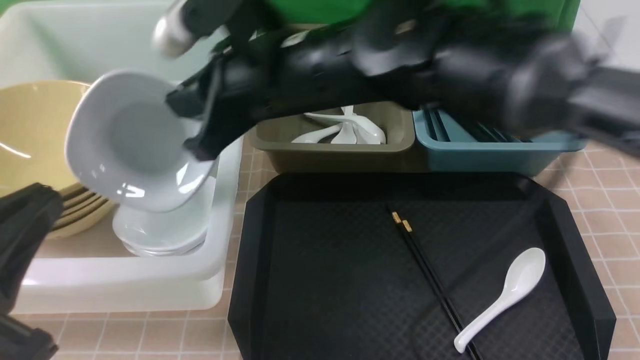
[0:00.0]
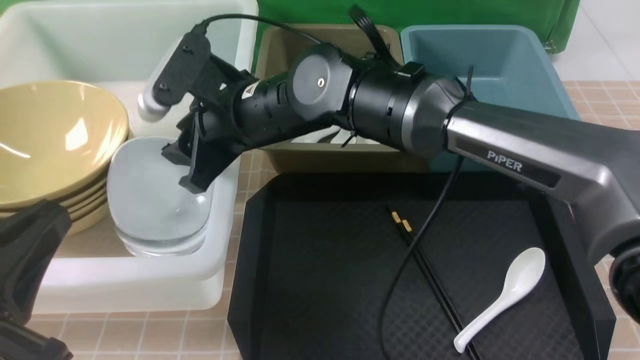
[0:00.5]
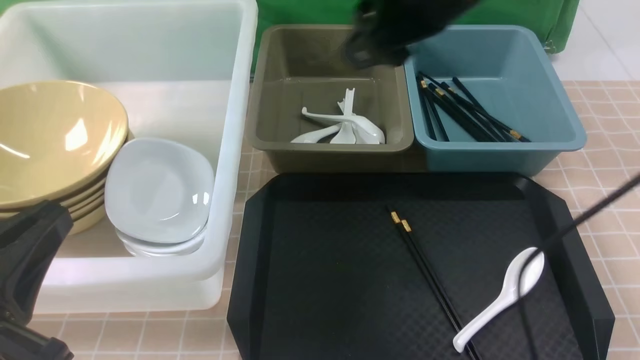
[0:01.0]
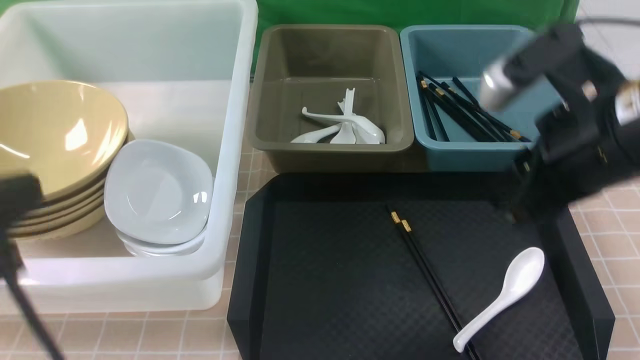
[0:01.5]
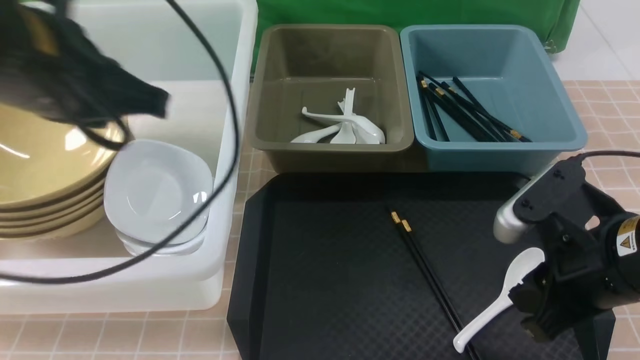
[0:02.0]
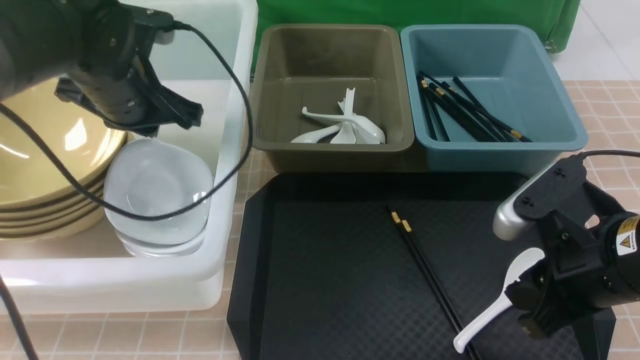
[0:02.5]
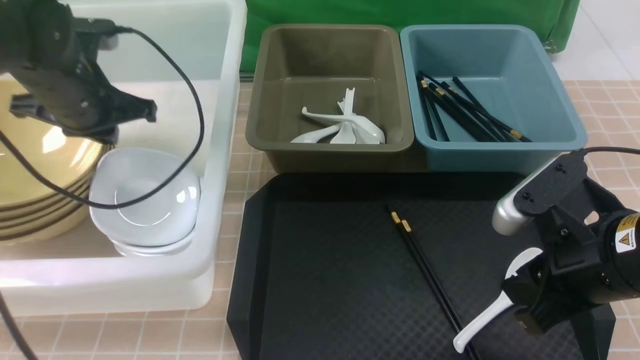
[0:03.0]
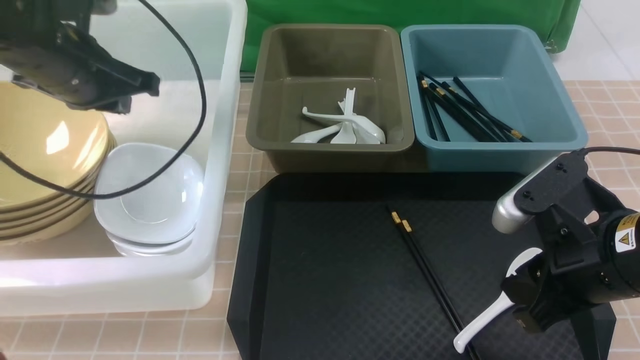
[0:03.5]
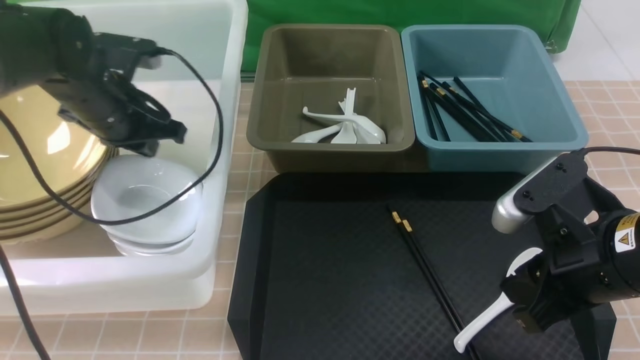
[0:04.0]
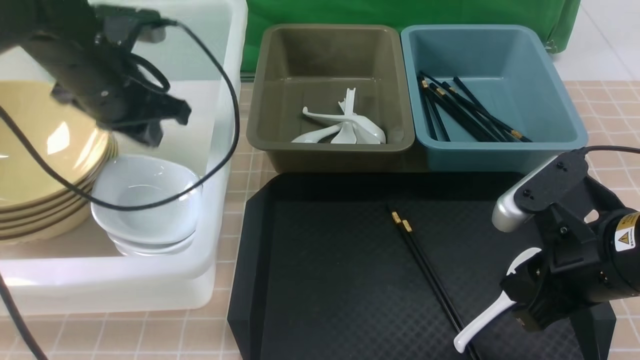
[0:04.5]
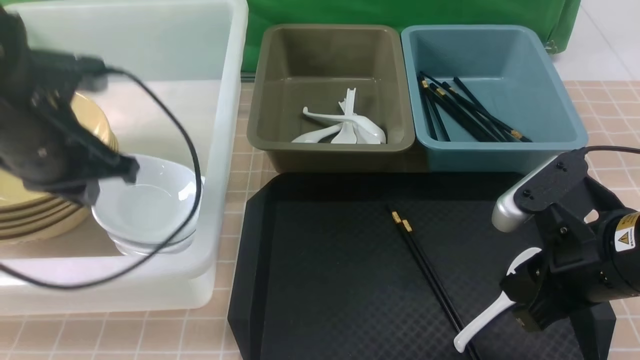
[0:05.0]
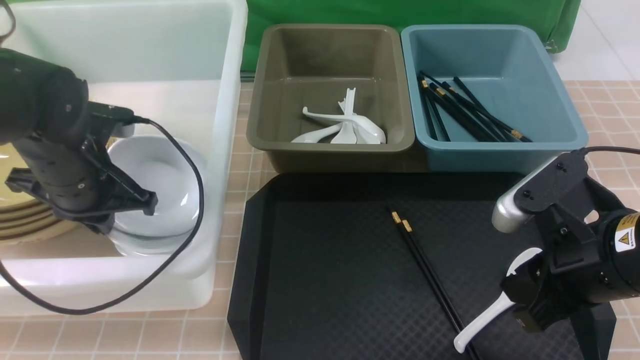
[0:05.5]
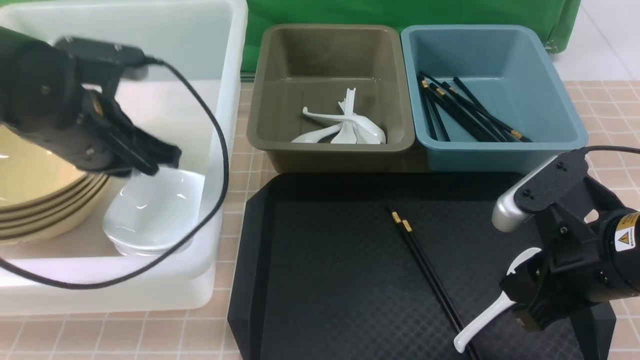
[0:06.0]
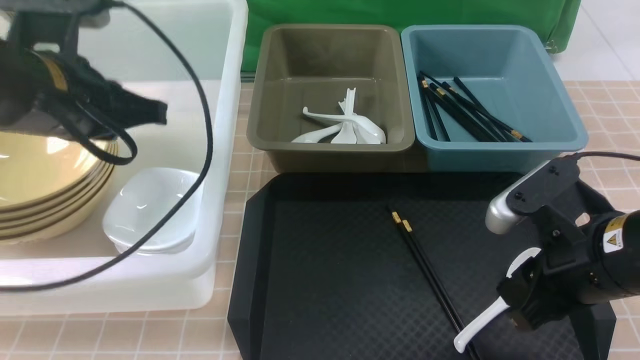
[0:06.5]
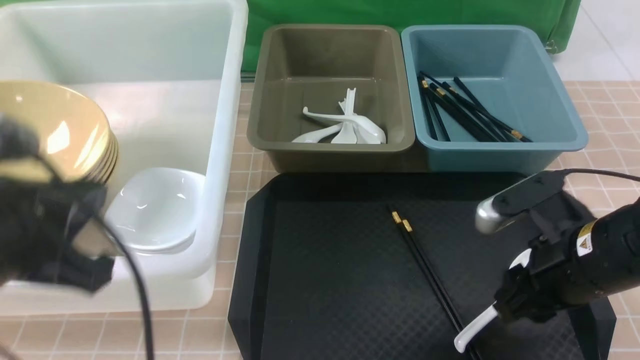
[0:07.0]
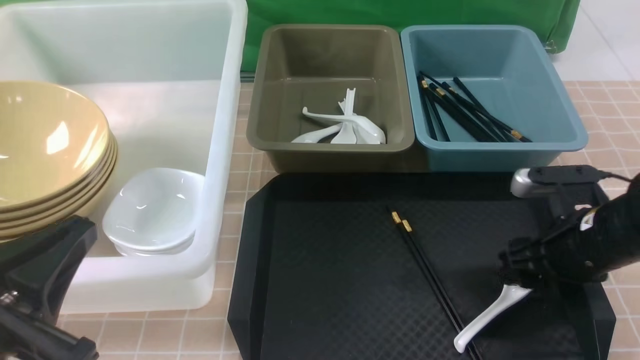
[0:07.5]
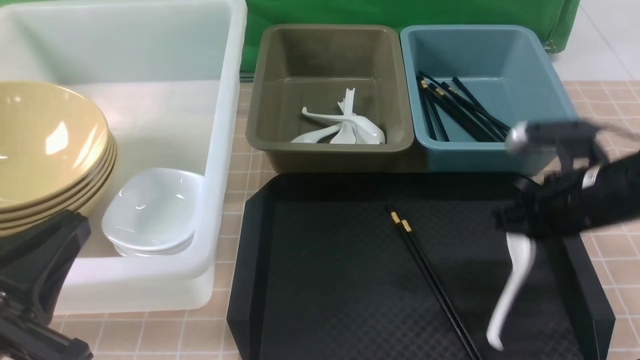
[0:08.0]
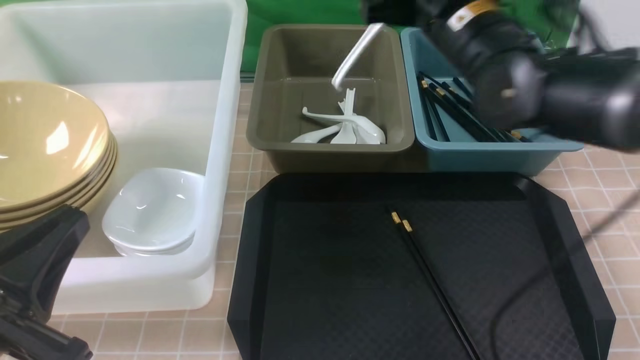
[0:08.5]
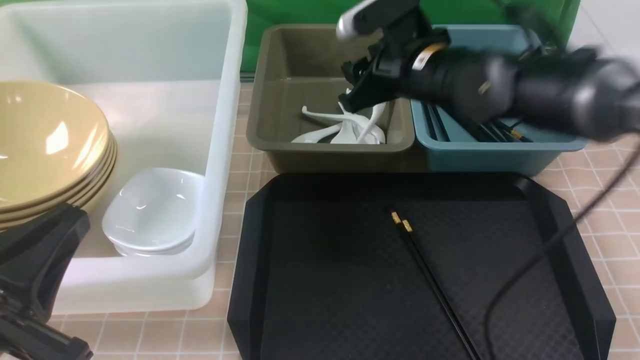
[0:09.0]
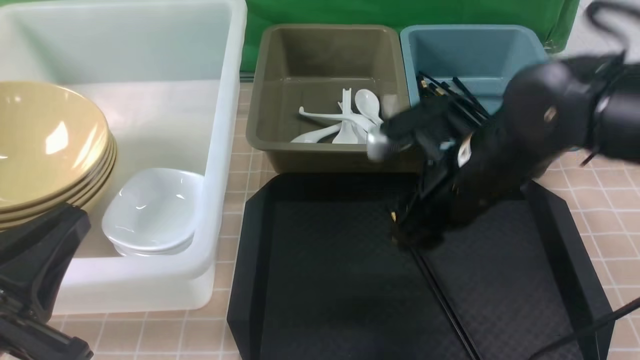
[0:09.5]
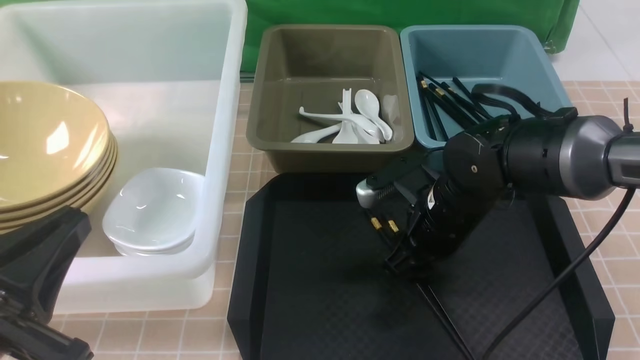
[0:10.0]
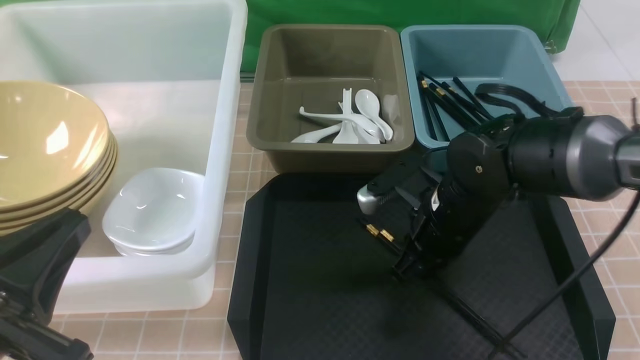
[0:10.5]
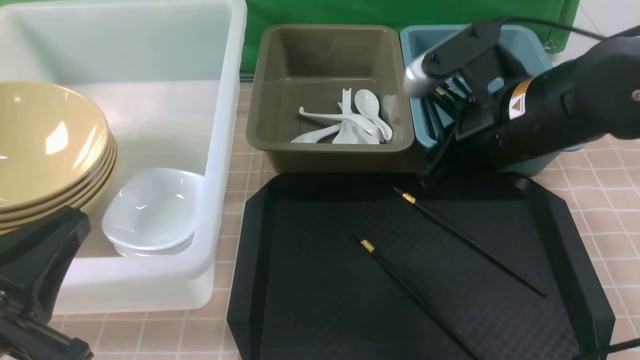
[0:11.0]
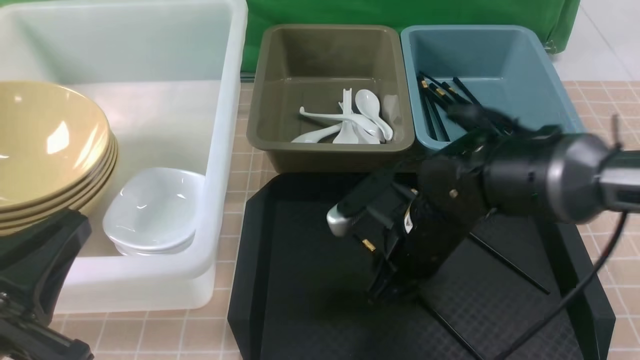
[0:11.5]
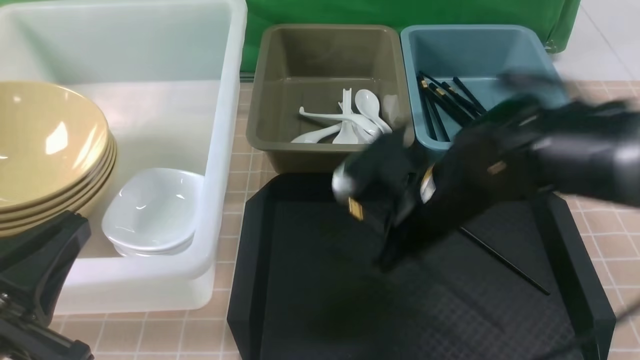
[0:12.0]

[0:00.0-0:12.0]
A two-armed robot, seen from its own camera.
Task of the whole recording: on brown table put chopsticks spoon bowls plates into blue grey white boxes.
Step, 0:01.0 to 0:07.5: use the right arm to grab the soup spoon in the middle.
Step, 0:08.0 to 0:09.0: use the right arm to put the soup spoon into the small storage box in the middle.
Step, 0:09.5 to 0:11.5: use the right arm to grab a chopstick.
0:00.0 to 0:02.0: The right gripper heads to the right, backward and downward, covering some 25 cm, and opens up. Meanwhile the left gripper is displaced forward and upward by some 15 cm.
0:02.0 to 0:04.0: The left gripper goes approximately 20 cm forward and downward.
0:04.0 to 0:06.0: The left gripper moves backward, some 10 cm.
0:06.0 to 0:08.0: The right gripper is displaced forward by roughly 10 cm, and opens, then closes again. Meanwhile the left gripper moves backward, roughly 25 cm.
0:08.0 to 0:10.0: The right gripper travels to the left by about 10 cm, moves roughly 10 cm upward and comes back, and opens up.
0:10.0 to 0:12.0: The right gripper closes up.

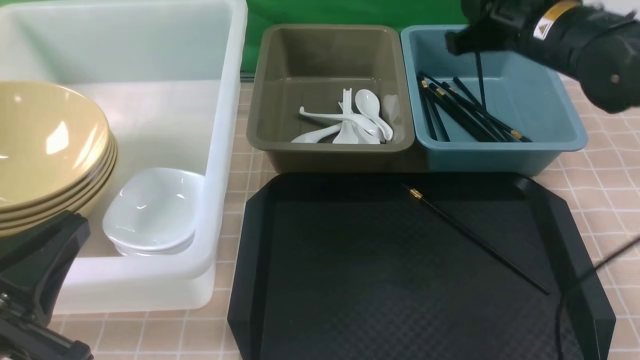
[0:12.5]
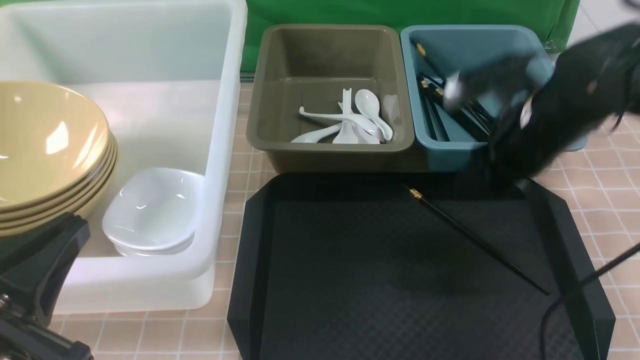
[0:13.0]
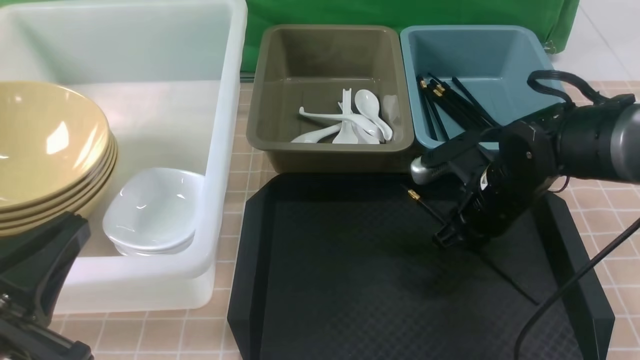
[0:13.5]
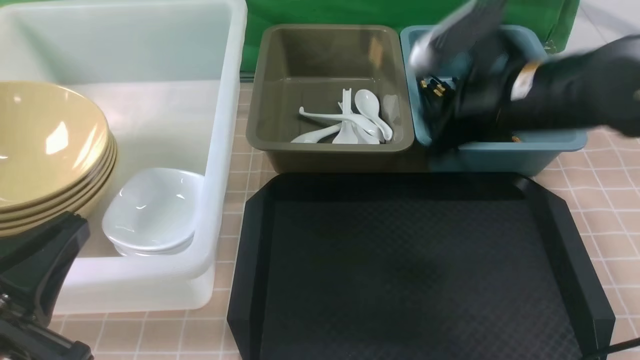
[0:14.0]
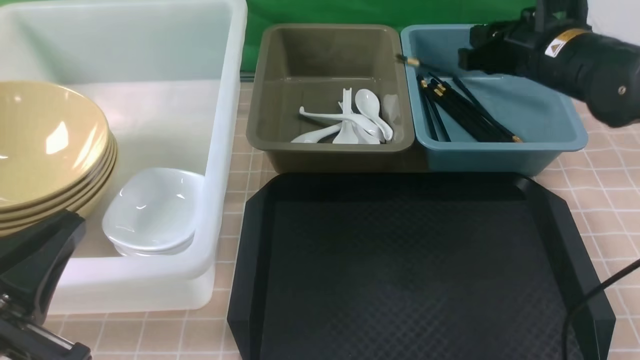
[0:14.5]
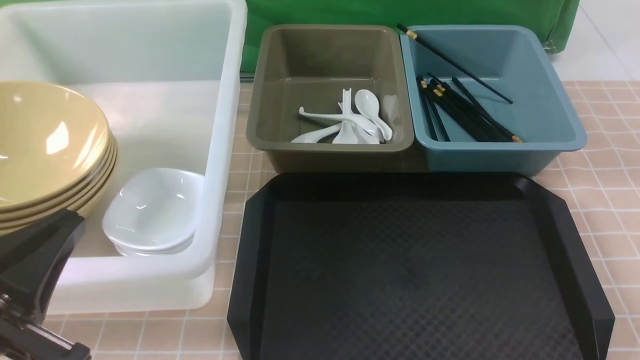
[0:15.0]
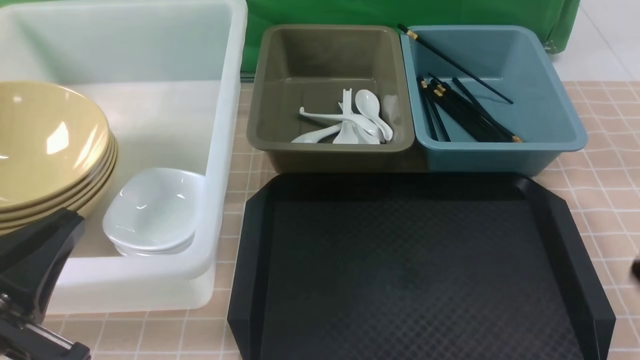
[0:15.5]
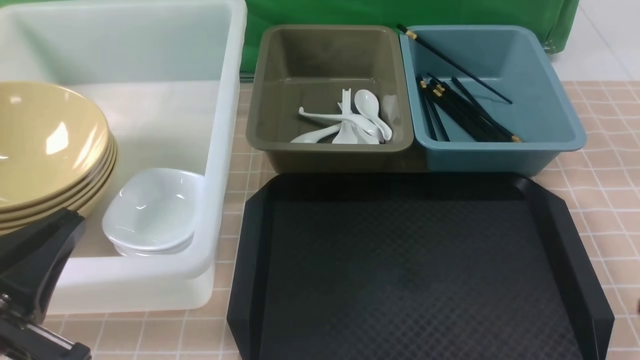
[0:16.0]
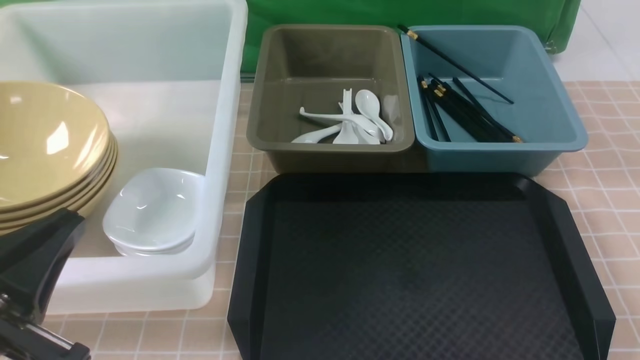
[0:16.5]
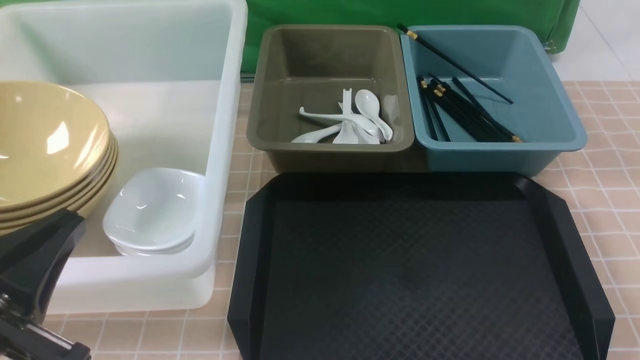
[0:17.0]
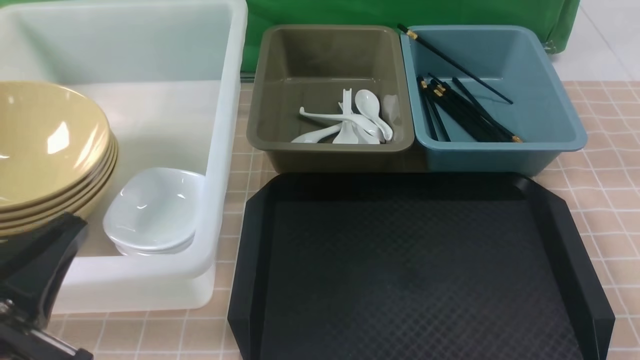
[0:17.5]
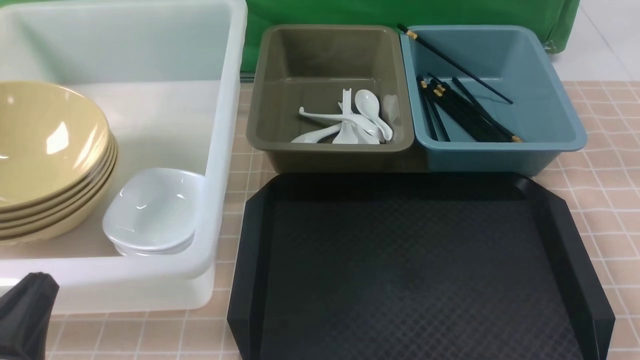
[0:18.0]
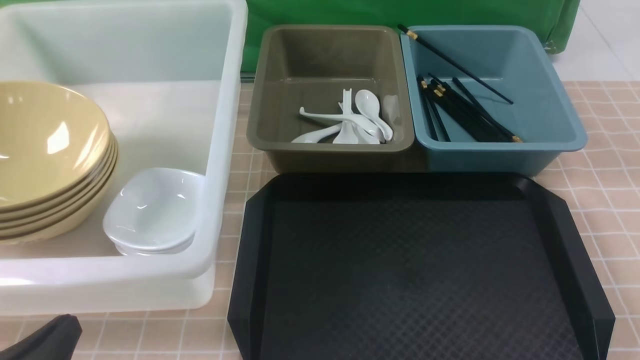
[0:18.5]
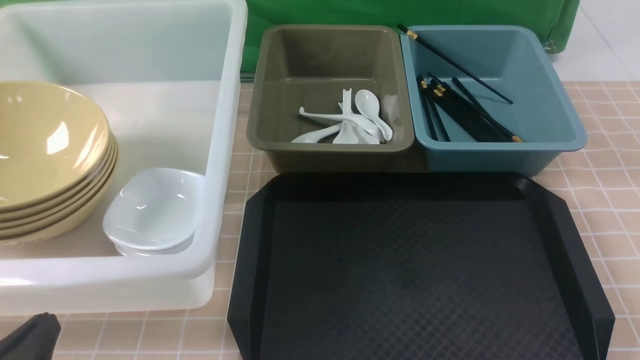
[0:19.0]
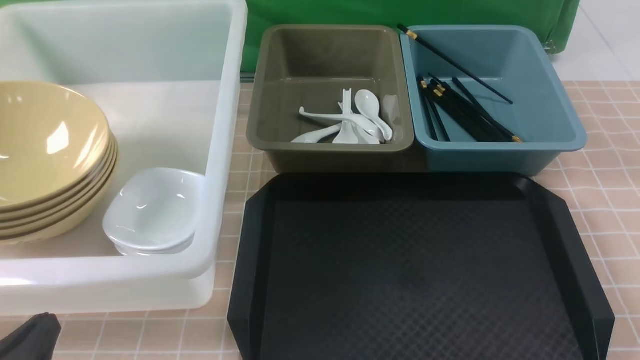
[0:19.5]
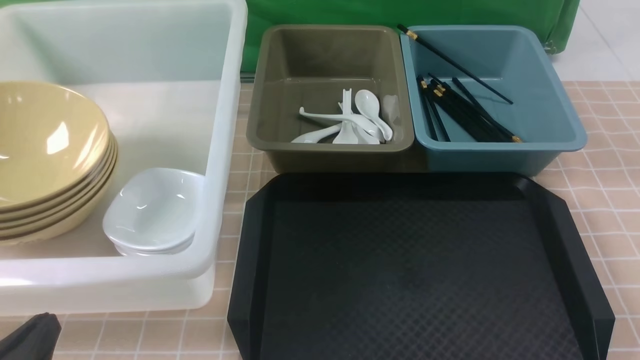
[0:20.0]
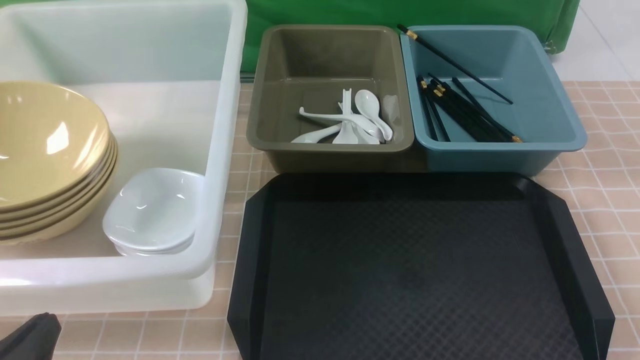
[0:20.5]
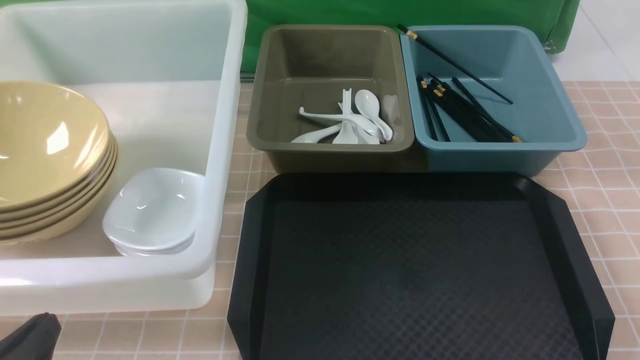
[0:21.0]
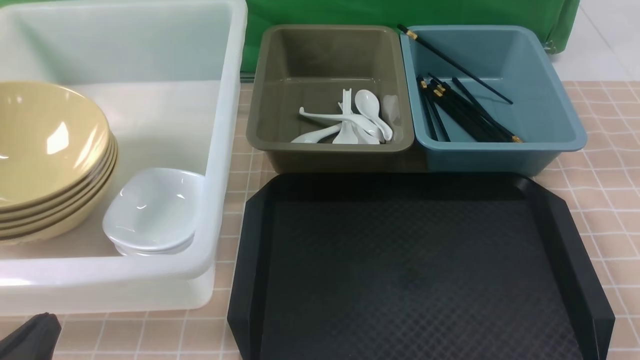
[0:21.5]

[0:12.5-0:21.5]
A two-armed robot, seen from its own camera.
Task of the whole recording: on brown table put chopsticks spoon bowls plates into blue grey white boxes.
Step, 0:13.0 to 0:13.5: use the right arm to grab a chopstick.
Step, 0:14.0 to 0:14.5: use the right arm to put a chopstick into the small storage box on the right.
0:12.5 to 0:14.5: The right gripper goes downward and returns, about 15 cm each way.
0:14.5 to 0:17.0: The right gripper heads backward and downward, covering roughly 35 cm, and closes up.
0:17.0 to 0:19.5: The left gripper heads downward, covering roughly 10 cm.
0:19.5 to 0:21.5: Both grippers stay put.
